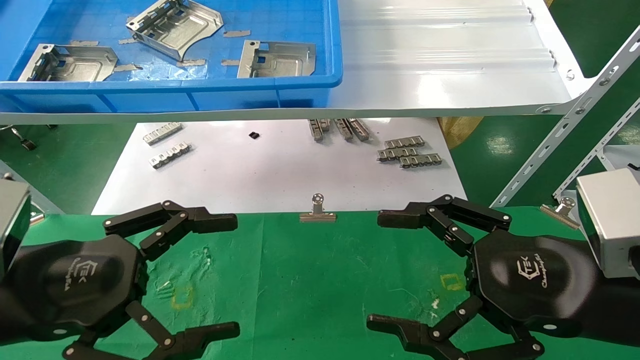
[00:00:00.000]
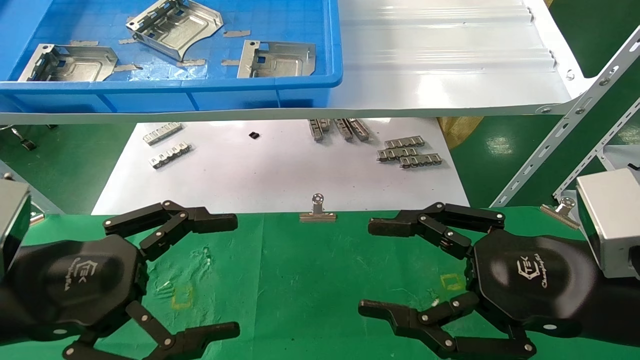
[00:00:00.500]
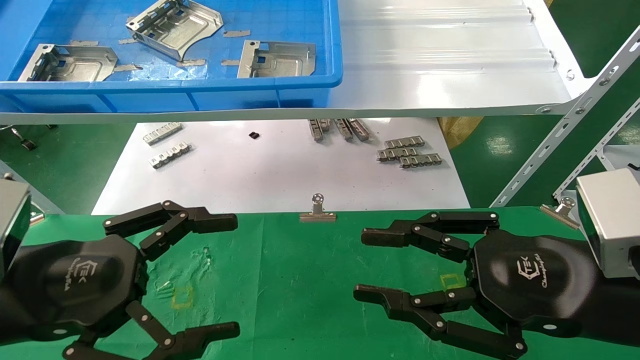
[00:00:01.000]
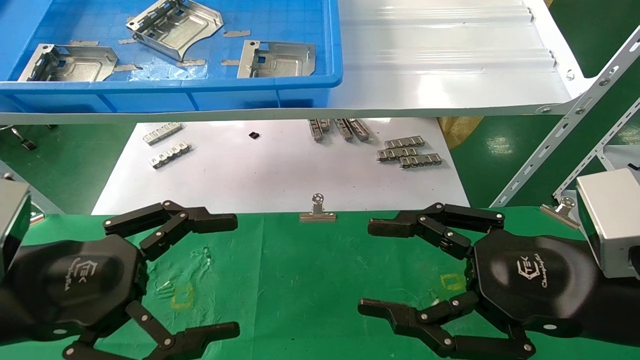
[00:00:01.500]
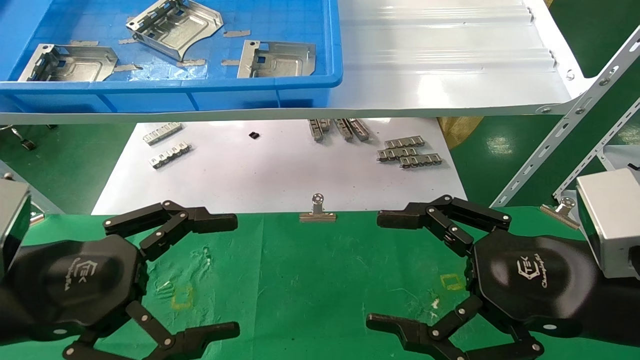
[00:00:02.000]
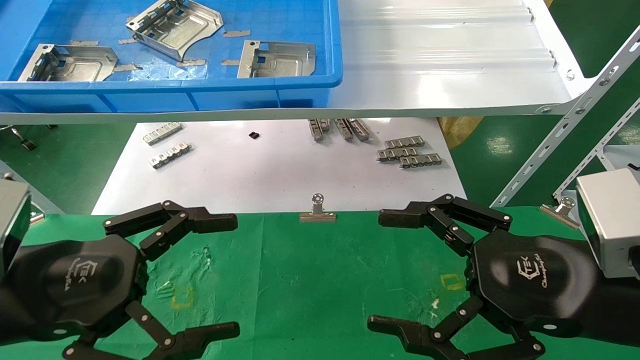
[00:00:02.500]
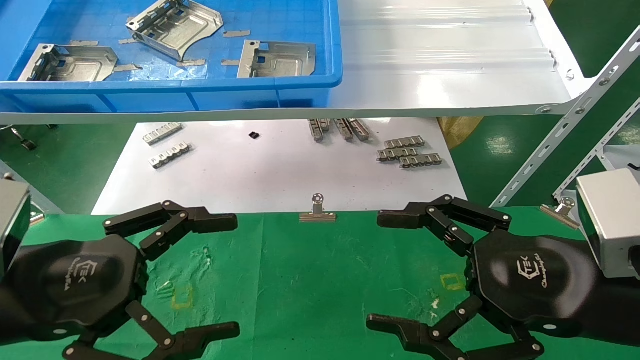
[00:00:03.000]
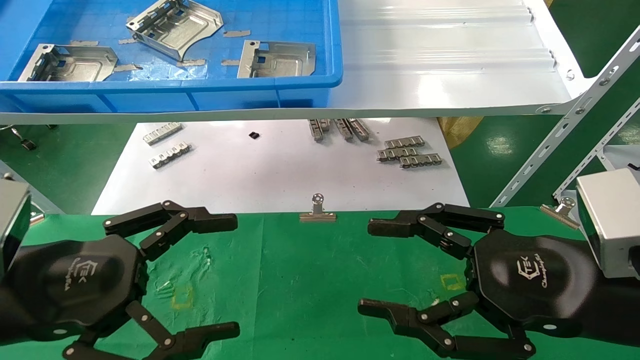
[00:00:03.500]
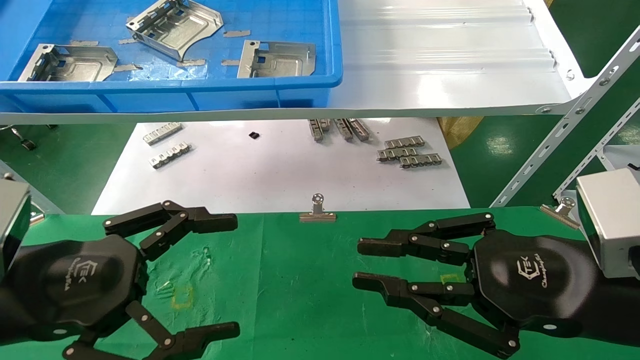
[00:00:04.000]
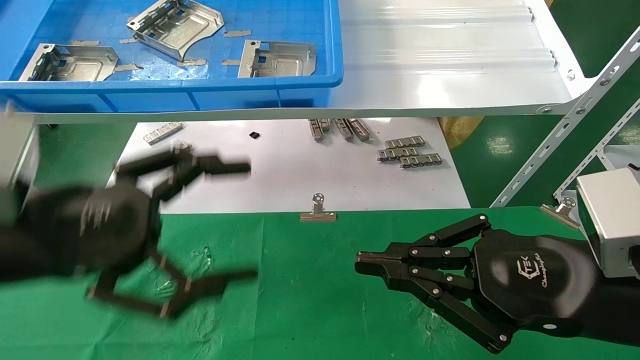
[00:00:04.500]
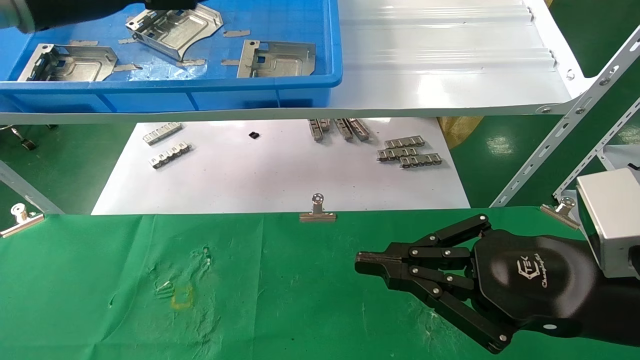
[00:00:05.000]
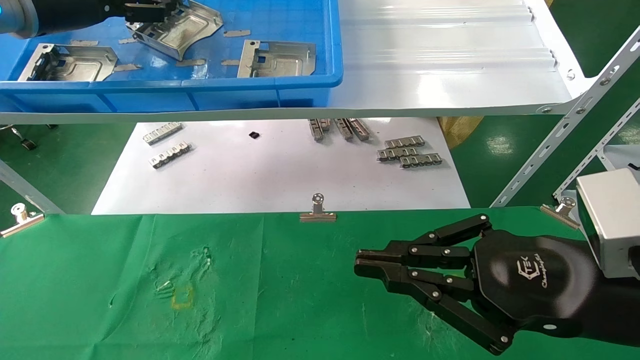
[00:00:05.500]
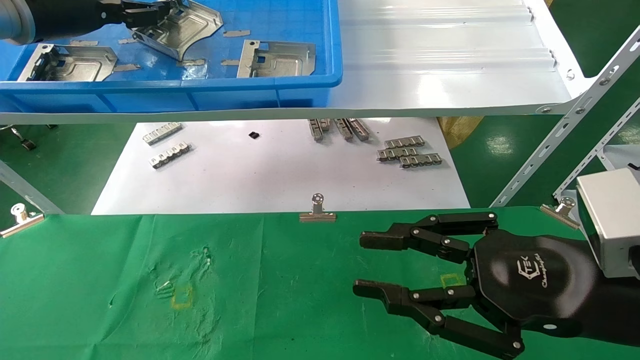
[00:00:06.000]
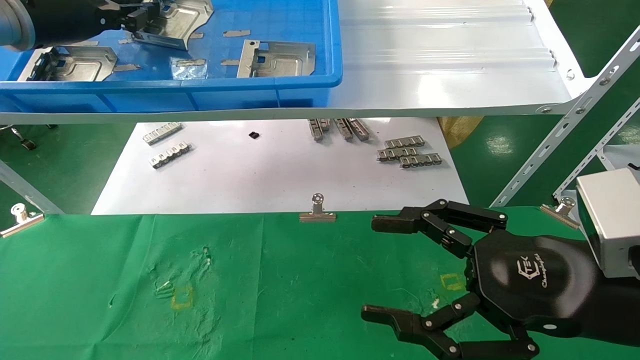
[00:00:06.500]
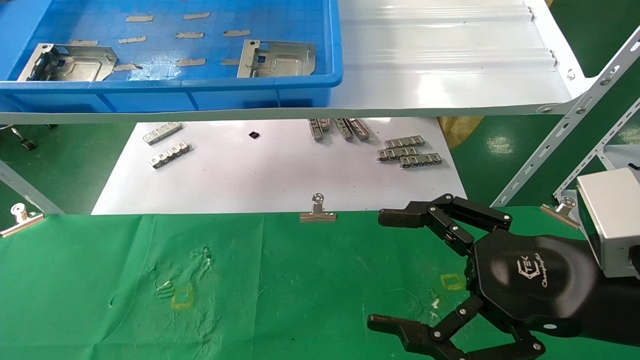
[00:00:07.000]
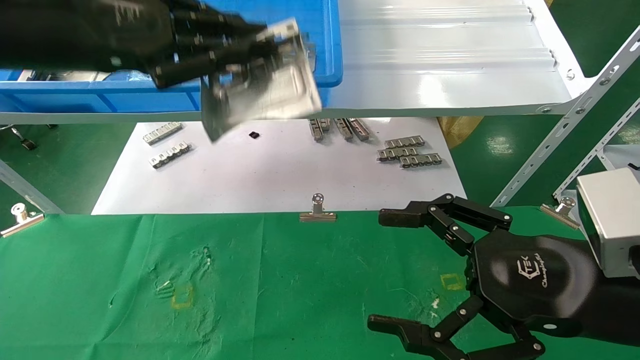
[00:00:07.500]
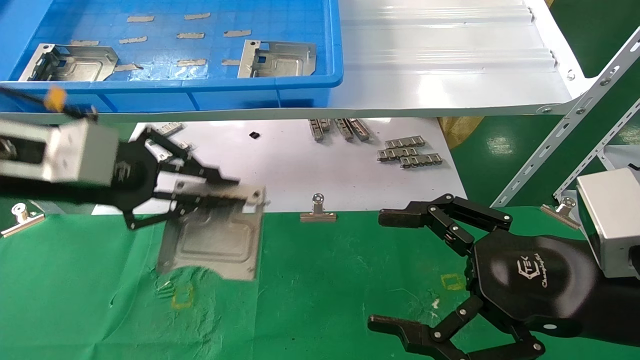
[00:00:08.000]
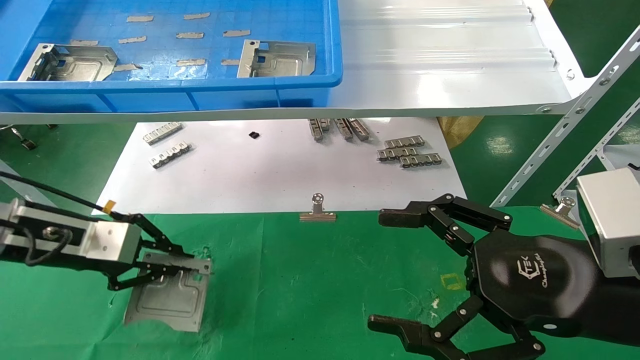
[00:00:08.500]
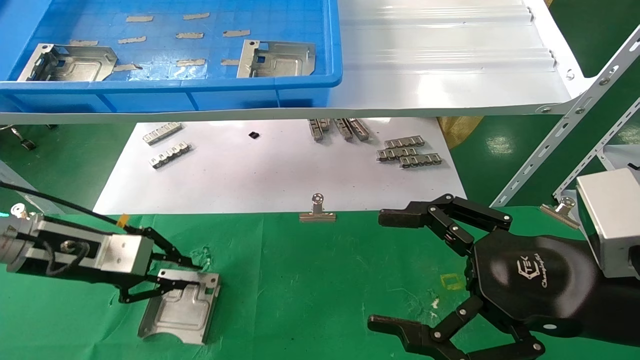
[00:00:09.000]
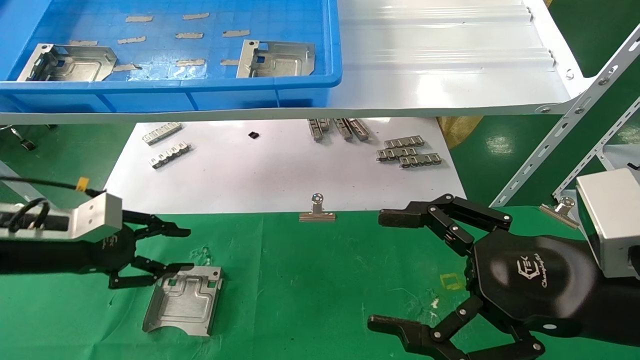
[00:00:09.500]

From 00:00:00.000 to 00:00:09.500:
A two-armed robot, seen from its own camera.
Task of the whole recording: use the mechanical arm to pick up the parts and place them on the table.
Step, from 00:00:05.000 to 00:00:06.500: Pick up the hard drive bracket from the feeding area.
Step, from 00:00:07.000 to 00:00:09.000: Place the hard drive bracket into the box.
From 00:00:02.000 to 00:00:04.000: The right gripper closes.
From 00:00:04.000 to 00:00:05.500: The left gripper is displaced upward and forward by some 30 cm.
From 00:00:05.500 to 00:00:07.500: The left gripper moves backward and to the right, roughly 15 cm, and closes; the right gripper opens.
From 00:00:07.500 to 00:00:09.500: The left gripper moves downward and to the left, roughly 25 cm.

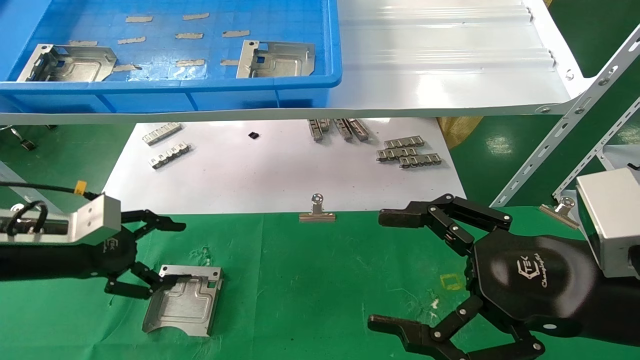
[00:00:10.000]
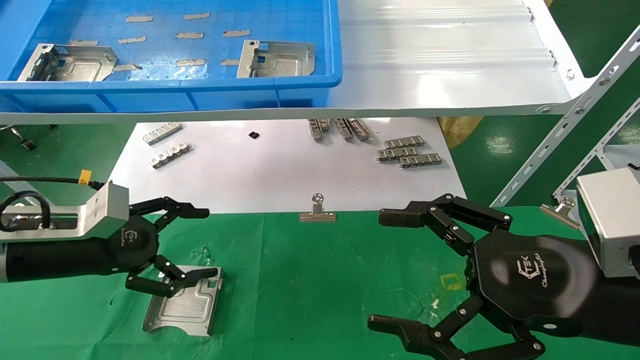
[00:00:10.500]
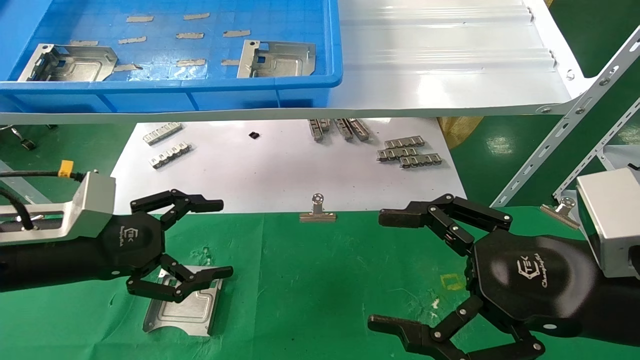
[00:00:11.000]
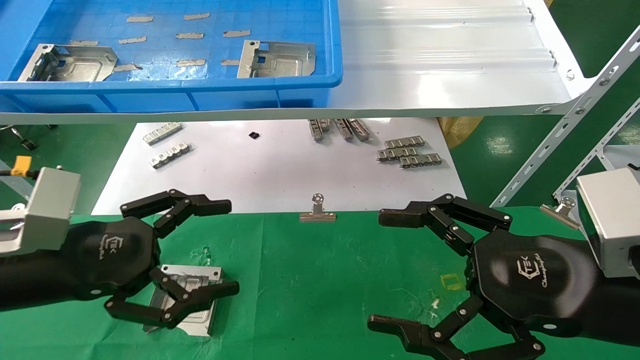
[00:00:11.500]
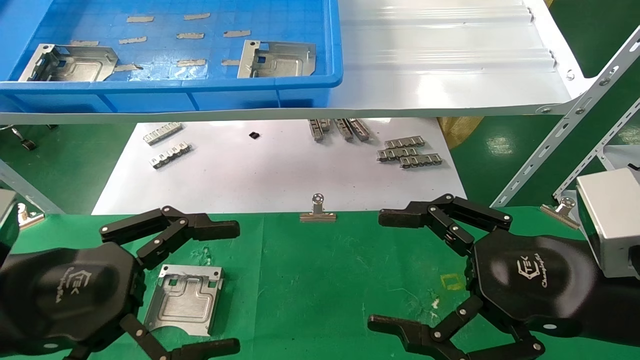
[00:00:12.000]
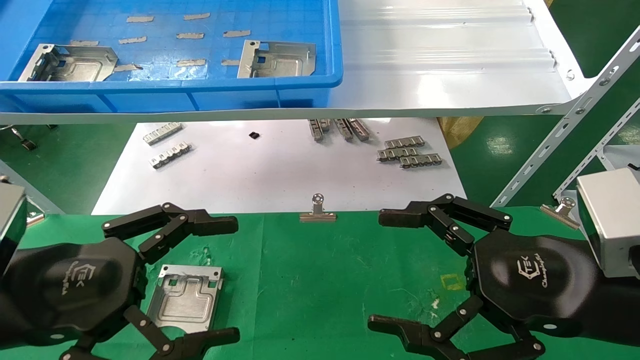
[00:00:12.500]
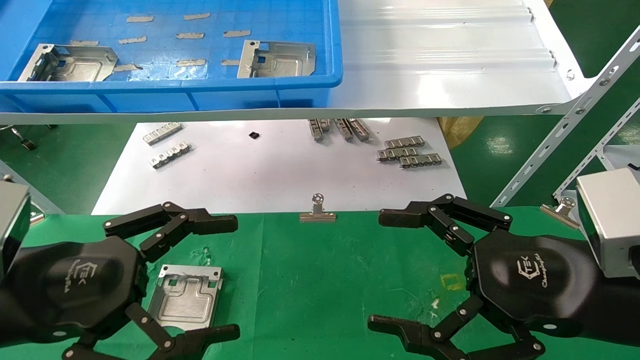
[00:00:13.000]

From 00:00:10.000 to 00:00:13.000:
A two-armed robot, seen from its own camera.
Task of the whole recording: use the mechanical arm to pick up the parts and place them on the table.
From 00:00:10.000 to 00:00:11.500: The left gripper goes some 10 cm backward and to the right.
From 00:00:11.500 to 00:00:13.000: The left gripper moves some 5 cm.
